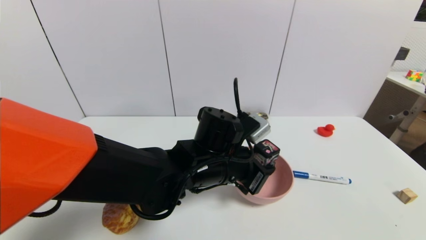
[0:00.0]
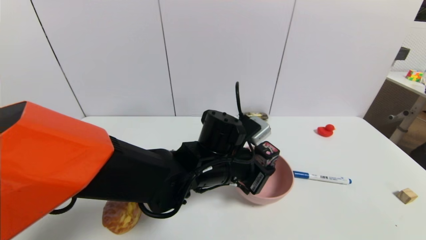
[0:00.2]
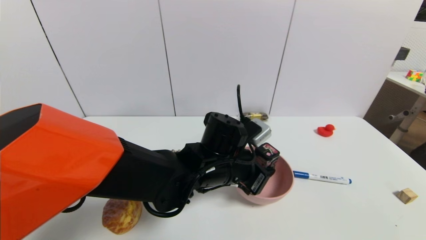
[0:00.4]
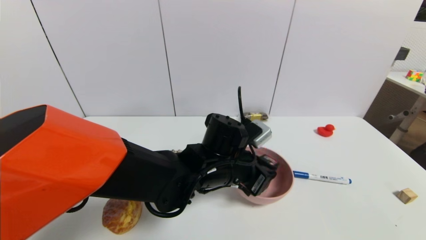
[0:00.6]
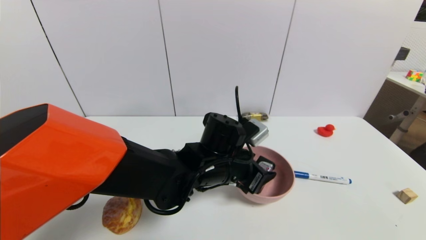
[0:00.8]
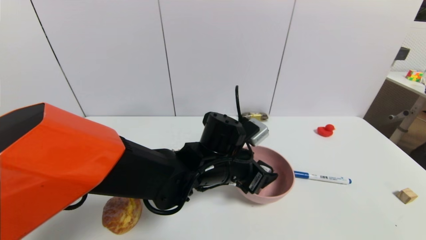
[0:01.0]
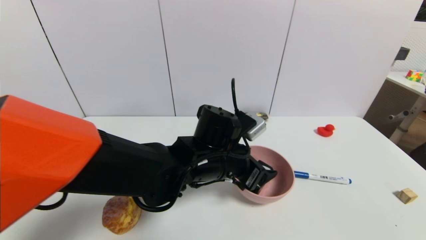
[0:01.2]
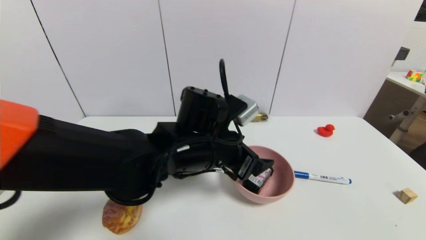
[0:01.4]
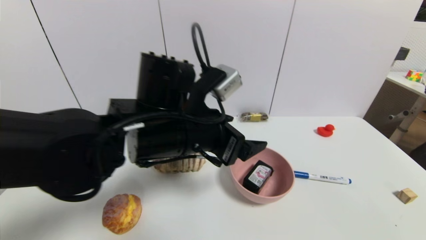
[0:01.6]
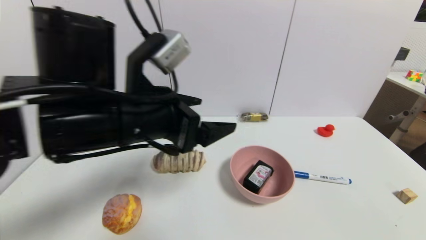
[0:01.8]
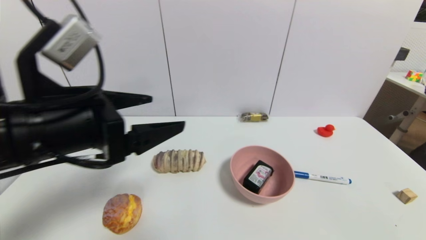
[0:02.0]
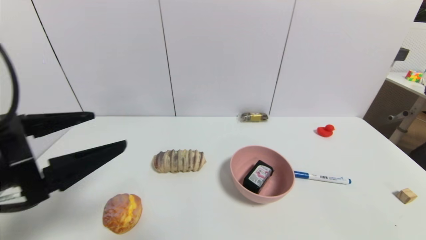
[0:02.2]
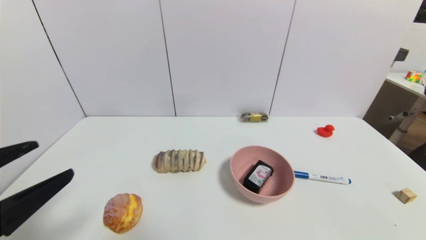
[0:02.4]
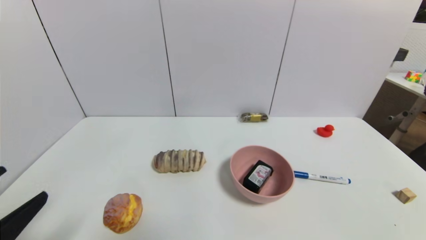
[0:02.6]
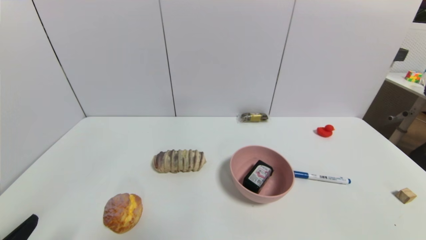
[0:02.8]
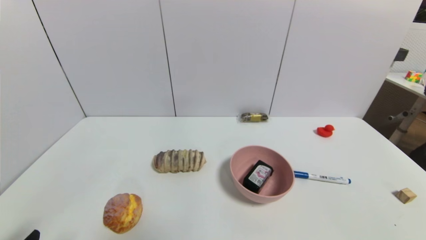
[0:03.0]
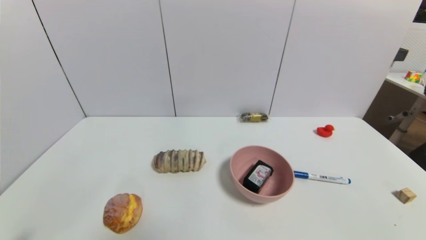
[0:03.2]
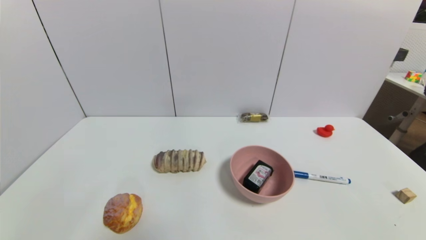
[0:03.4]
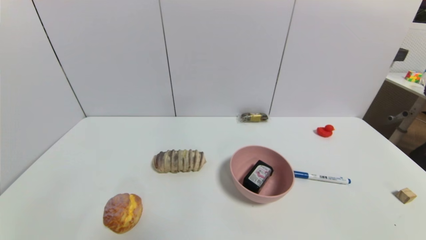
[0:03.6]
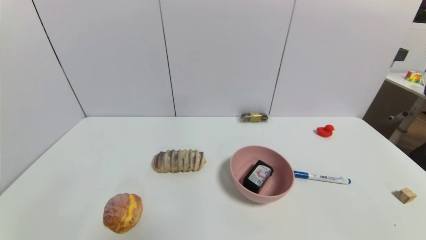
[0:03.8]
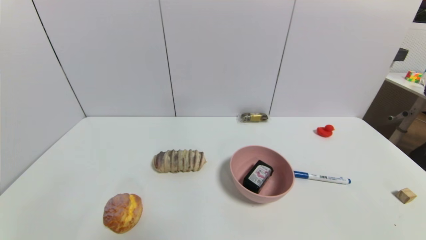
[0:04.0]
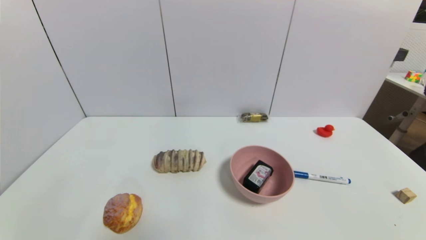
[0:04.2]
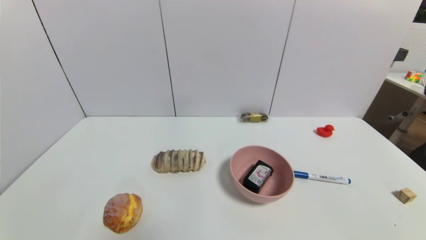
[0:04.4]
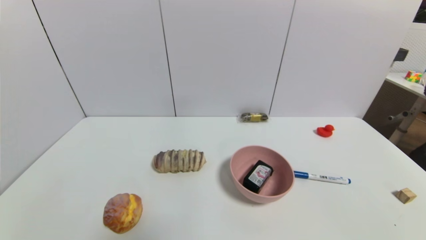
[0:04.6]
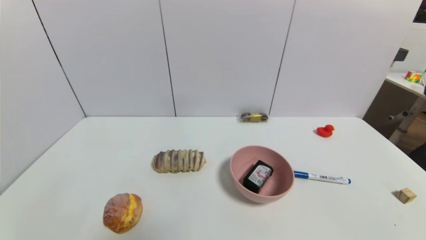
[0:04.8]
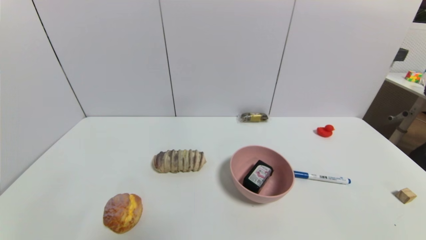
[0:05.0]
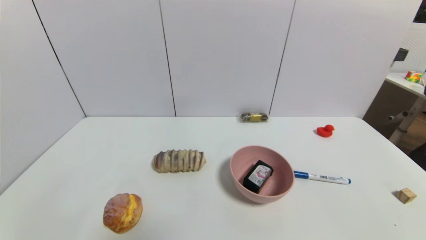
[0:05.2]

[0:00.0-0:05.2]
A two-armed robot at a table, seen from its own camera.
Task of the whole recording: use a gripper to pick the target object and place on the pink bowl.
0:00.0 to 0:01.8: The left gripper moves to the left, upward and backward, roughly 20 cm, and opens its fingers.
0:01.8 to 0:03.4: The left gripper goes about 35 cm backward, downward and to the left.
